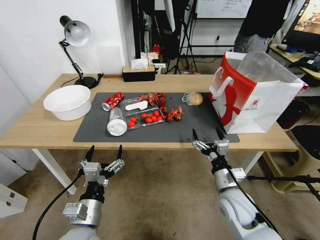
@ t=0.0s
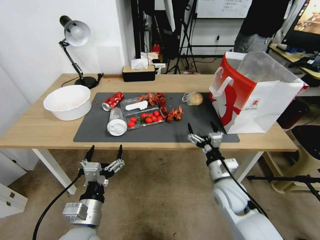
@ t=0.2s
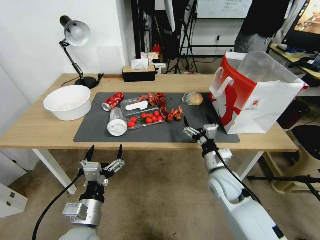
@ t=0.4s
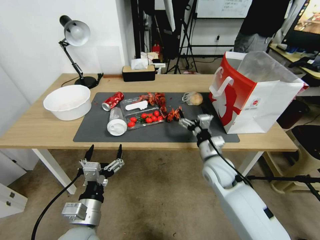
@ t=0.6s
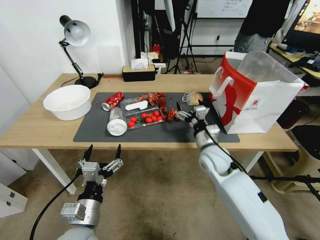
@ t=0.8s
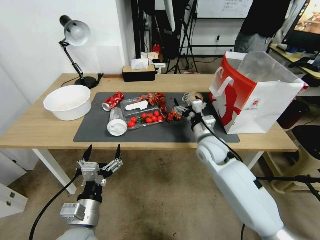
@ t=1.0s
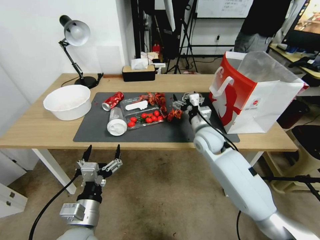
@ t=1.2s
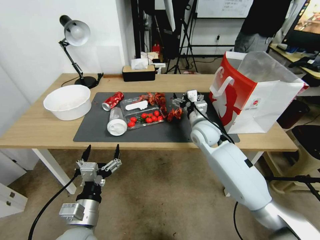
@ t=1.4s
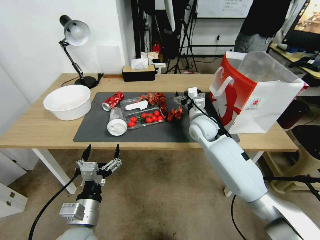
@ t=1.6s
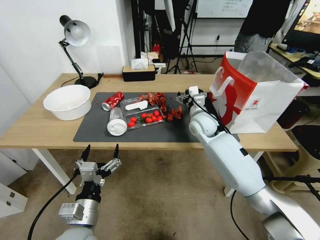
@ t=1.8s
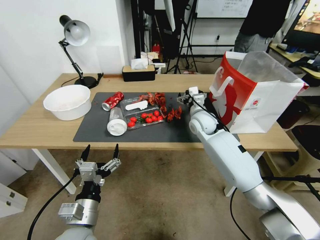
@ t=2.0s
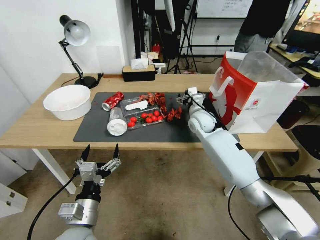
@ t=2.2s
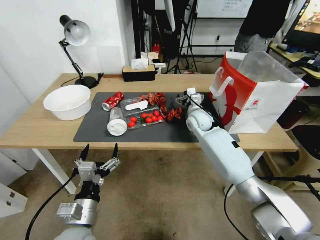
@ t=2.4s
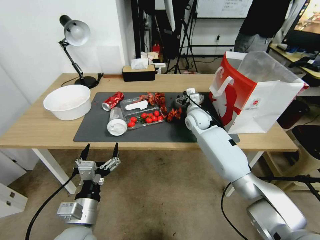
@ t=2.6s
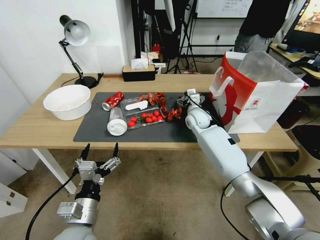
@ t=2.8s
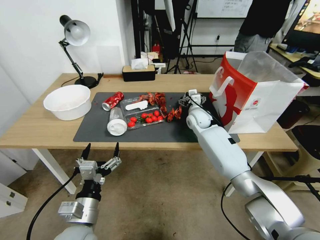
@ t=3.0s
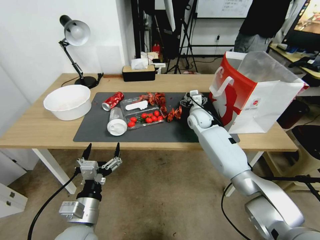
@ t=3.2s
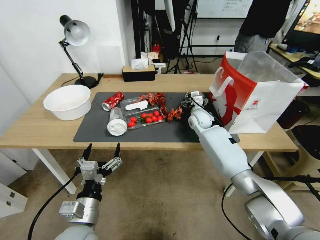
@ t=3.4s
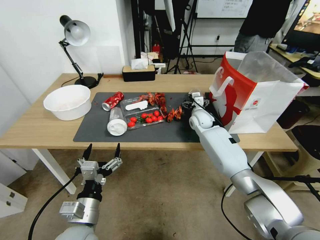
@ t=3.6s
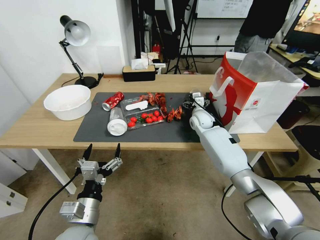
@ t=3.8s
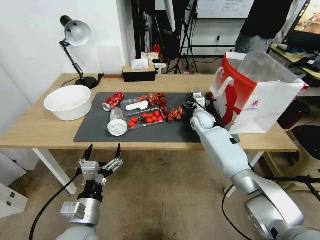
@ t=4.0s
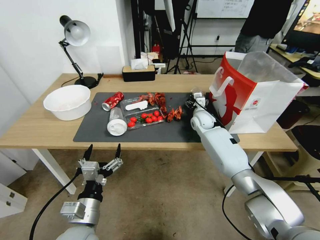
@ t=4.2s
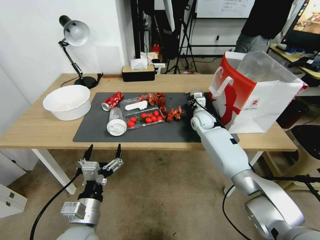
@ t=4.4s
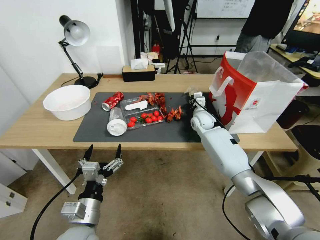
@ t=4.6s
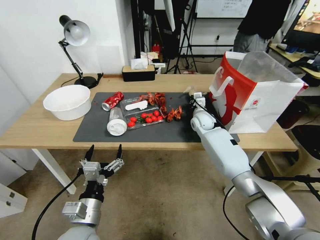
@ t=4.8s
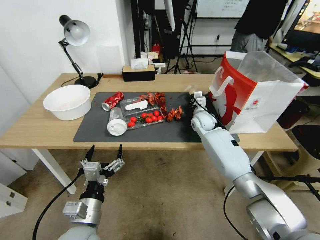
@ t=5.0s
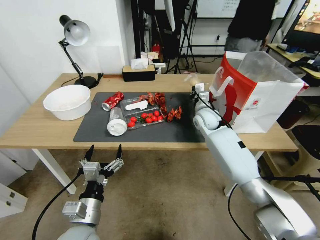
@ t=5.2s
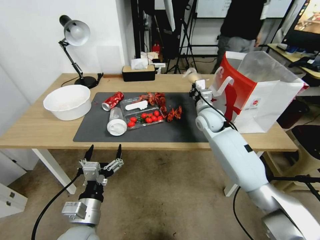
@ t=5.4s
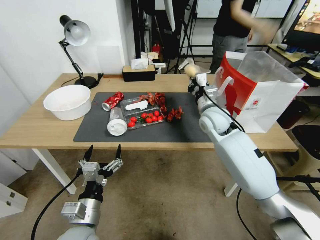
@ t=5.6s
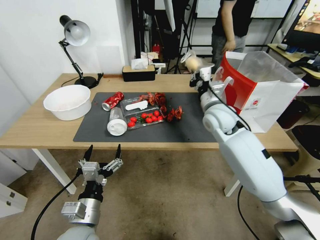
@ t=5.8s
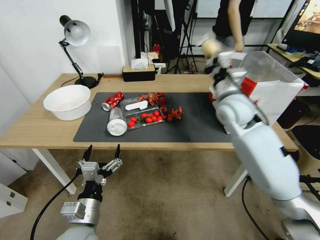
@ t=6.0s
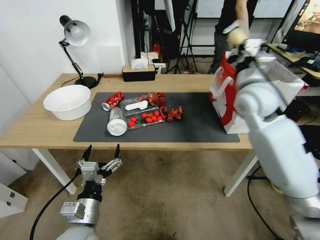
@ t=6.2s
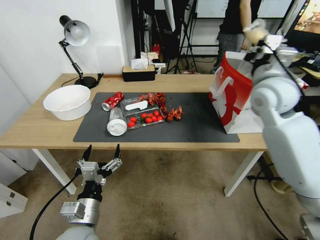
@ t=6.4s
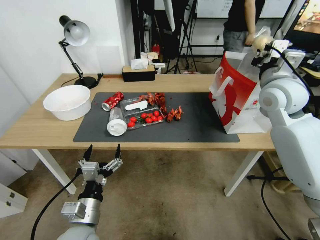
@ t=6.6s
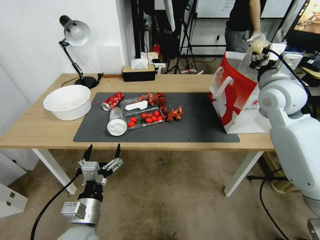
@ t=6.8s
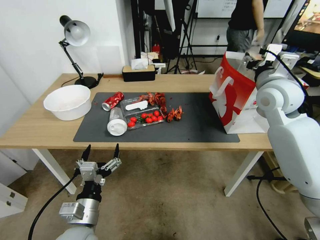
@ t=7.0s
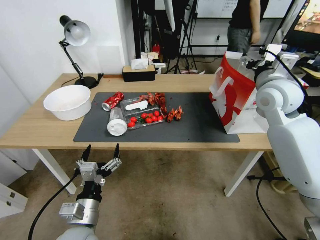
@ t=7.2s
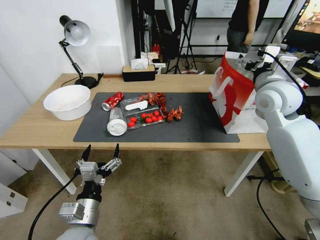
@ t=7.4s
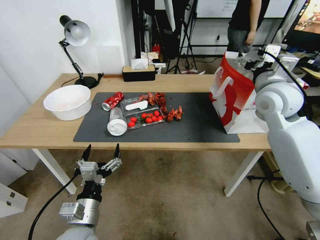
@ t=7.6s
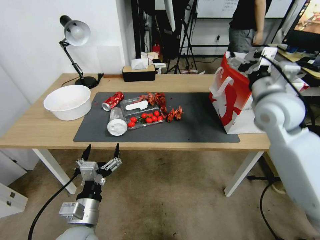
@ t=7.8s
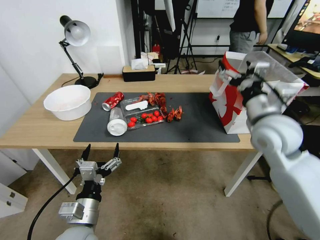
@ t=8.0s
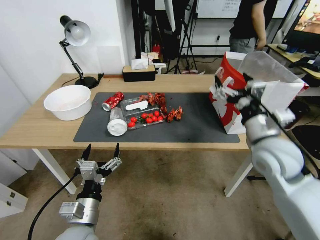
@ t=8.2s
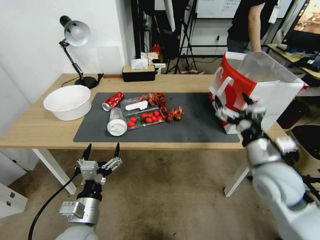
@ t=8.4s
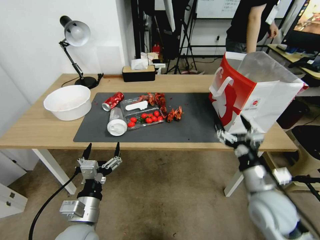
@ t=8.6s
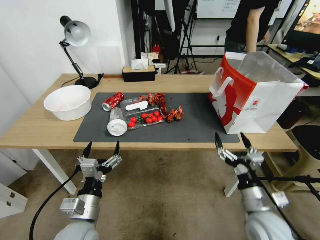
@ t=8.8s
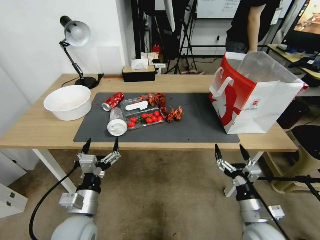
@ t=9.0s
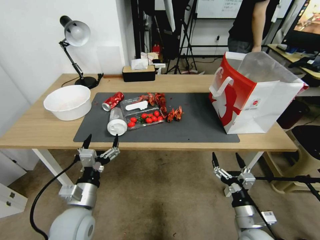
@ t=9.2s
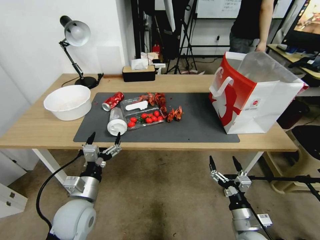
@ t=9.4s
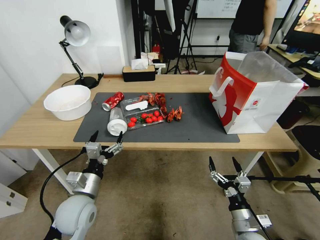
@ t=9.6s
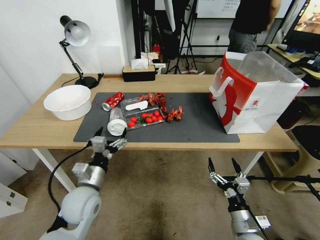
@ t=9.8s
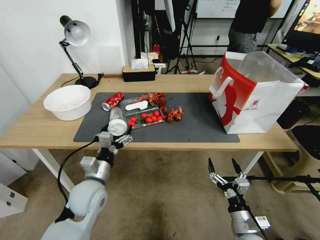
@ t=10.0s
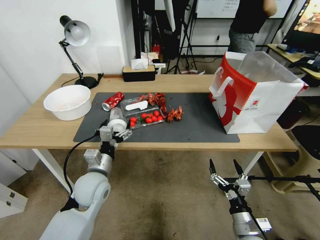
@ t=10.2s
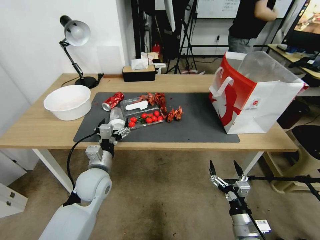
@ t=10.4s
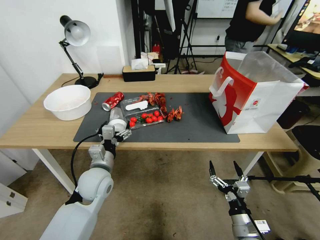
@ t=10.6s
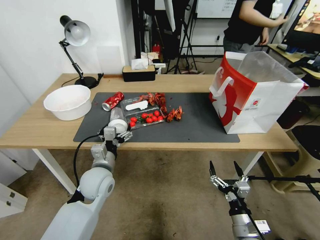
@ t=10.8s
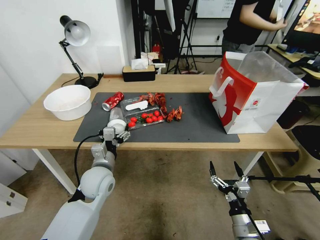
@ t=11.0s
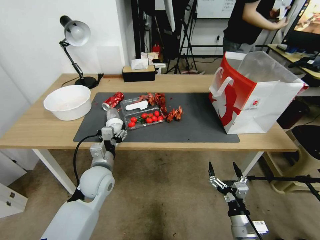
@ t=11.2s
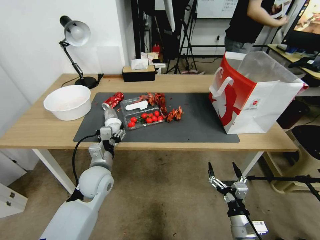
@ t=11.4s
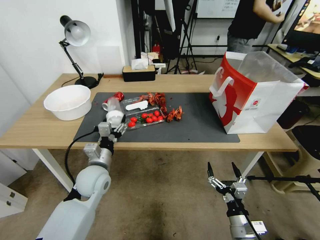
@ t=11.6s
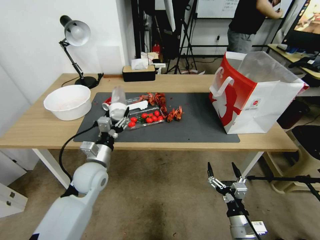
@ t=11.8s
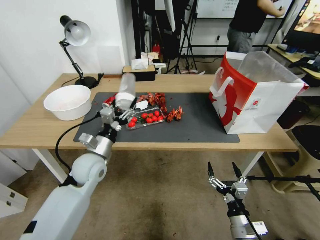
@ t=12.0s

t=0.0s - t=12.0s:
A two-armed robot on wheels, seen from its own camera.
t=0.0s - t=1.6s: The right gripper shifts approximately 25 cm forward and upward.
t=1.6s - t=3.0s: The right gripper moves forward, roughly 10 cm.
t=3.0s - t=4.4s: The right gripper closes its fingers.
t=4.4s - t=6.0s: The right gripper travels upward and backward by approximately 20 cm, and closes.
t=6.0s - t=7.6s: The right gripper goes roughly 10 cm to the right and upward, and opens up.
t=7.6s - t=9.0s: The right gripper shifts approximately 40 cm downward and backward.
t=9.0s - t=10.4s: The right gripper travels downward by some 5 cm. The left gripper heads forward, covering approximately 10 cm.
t=10.4s - t=12.0s: The left gripper shifts by roughly 5 cm, and closes up.

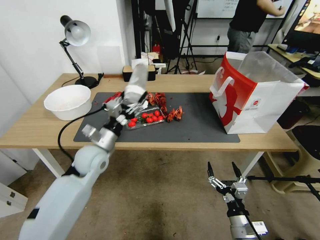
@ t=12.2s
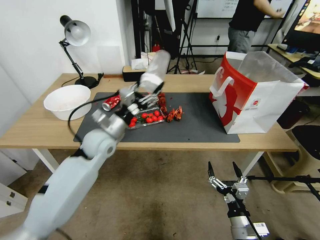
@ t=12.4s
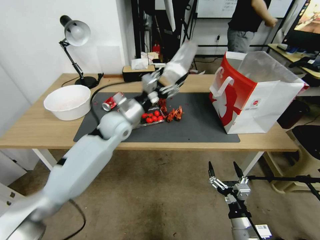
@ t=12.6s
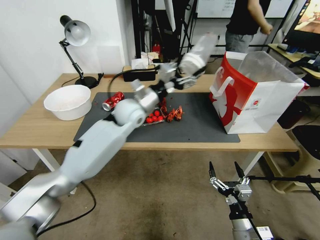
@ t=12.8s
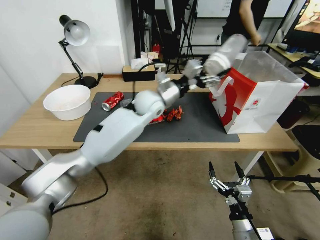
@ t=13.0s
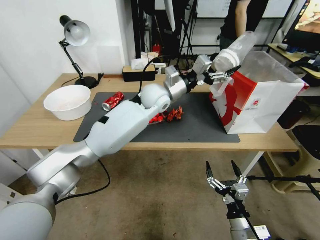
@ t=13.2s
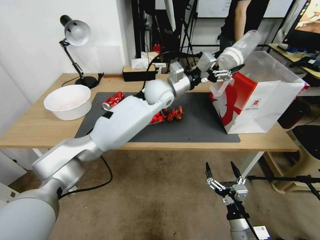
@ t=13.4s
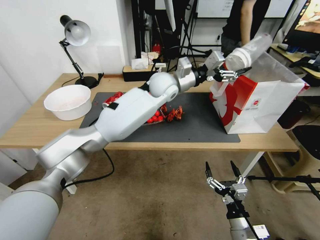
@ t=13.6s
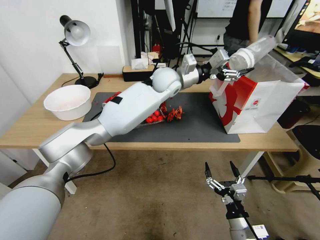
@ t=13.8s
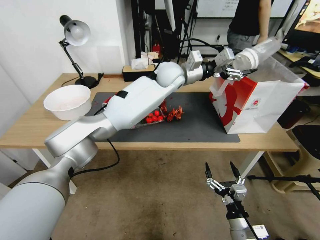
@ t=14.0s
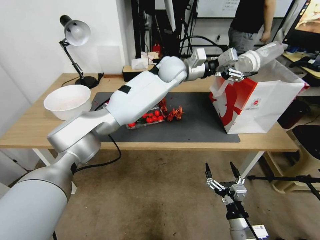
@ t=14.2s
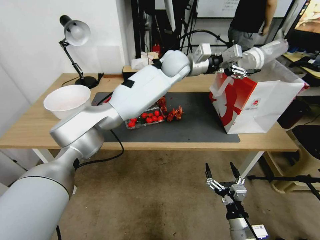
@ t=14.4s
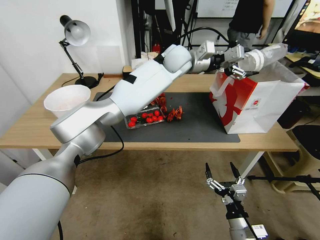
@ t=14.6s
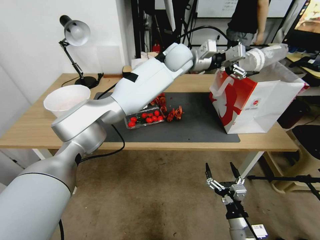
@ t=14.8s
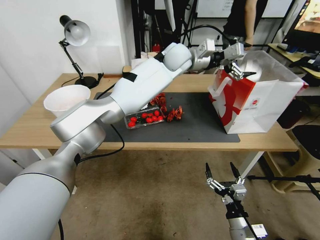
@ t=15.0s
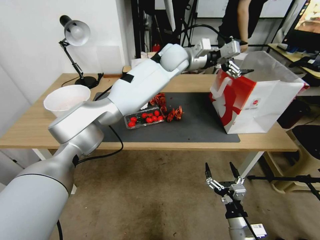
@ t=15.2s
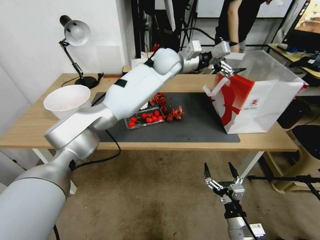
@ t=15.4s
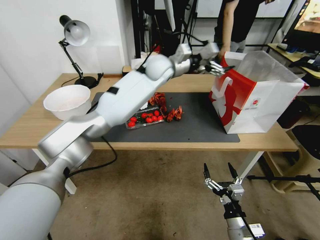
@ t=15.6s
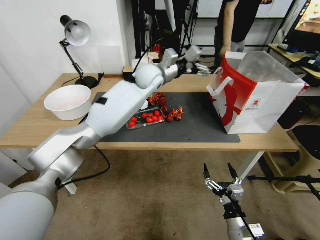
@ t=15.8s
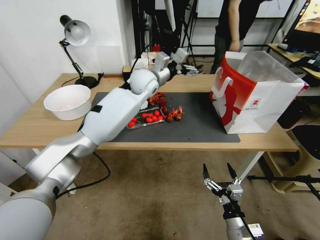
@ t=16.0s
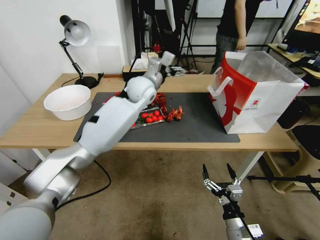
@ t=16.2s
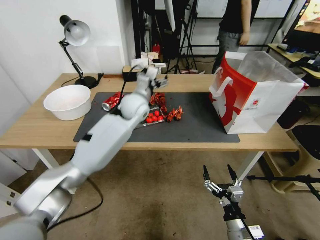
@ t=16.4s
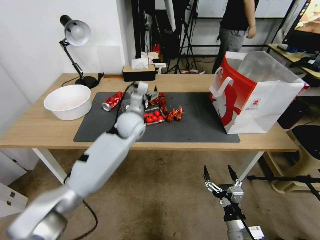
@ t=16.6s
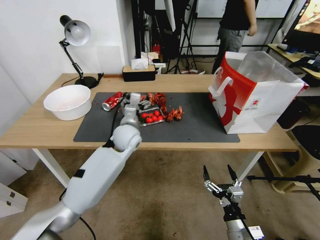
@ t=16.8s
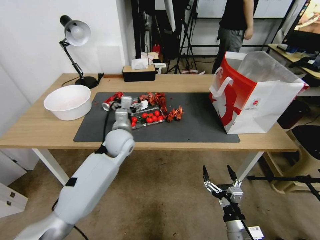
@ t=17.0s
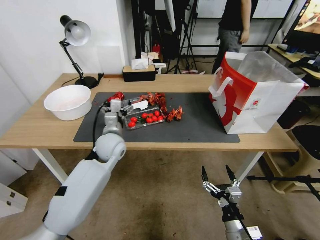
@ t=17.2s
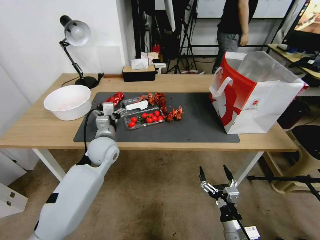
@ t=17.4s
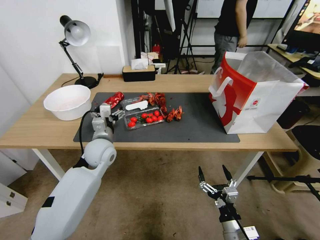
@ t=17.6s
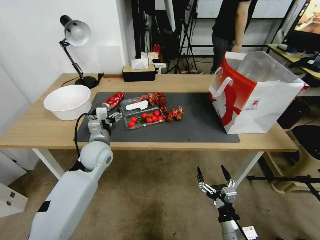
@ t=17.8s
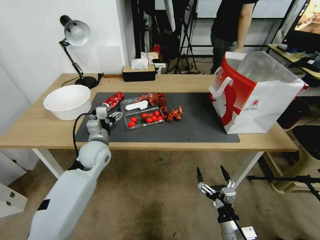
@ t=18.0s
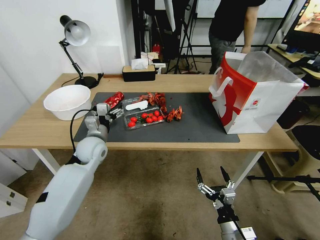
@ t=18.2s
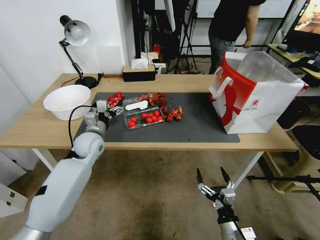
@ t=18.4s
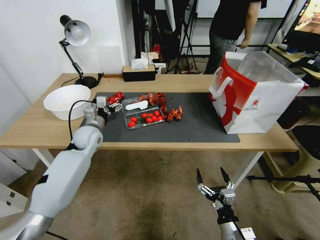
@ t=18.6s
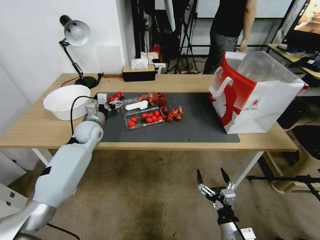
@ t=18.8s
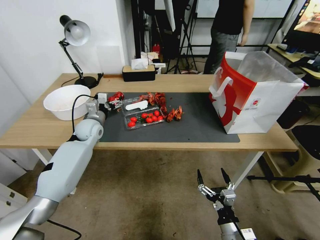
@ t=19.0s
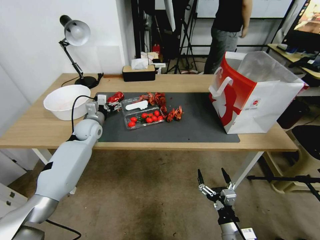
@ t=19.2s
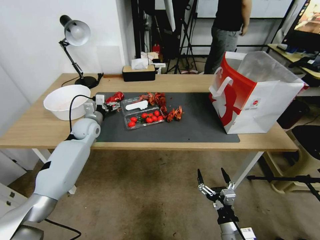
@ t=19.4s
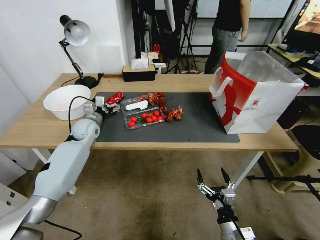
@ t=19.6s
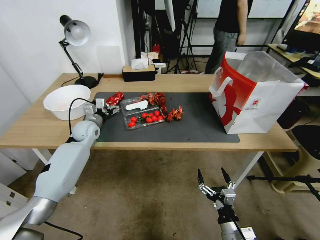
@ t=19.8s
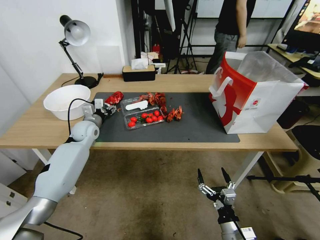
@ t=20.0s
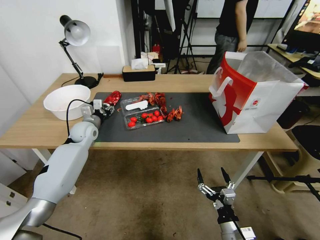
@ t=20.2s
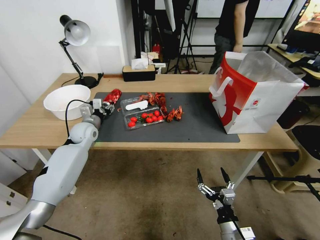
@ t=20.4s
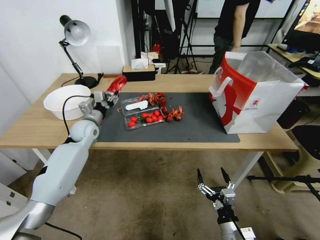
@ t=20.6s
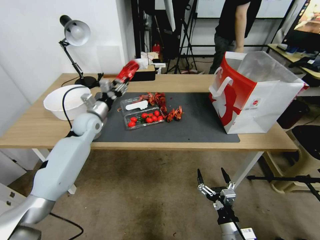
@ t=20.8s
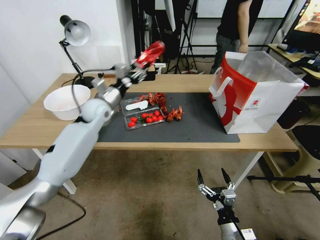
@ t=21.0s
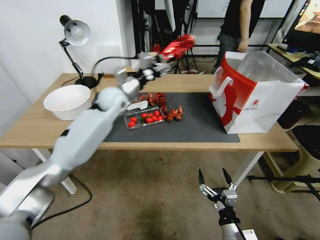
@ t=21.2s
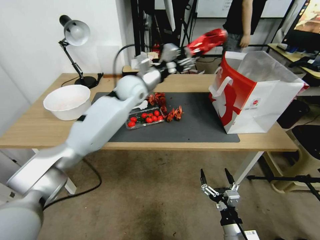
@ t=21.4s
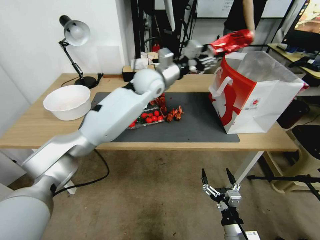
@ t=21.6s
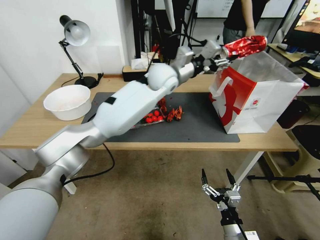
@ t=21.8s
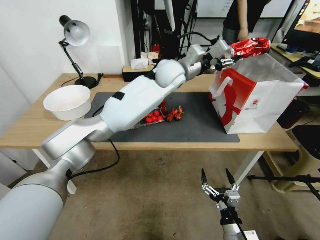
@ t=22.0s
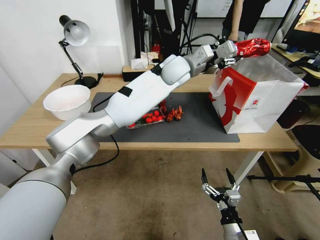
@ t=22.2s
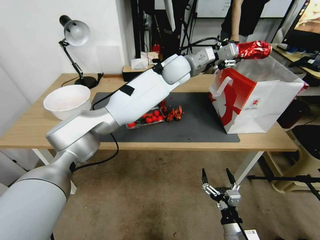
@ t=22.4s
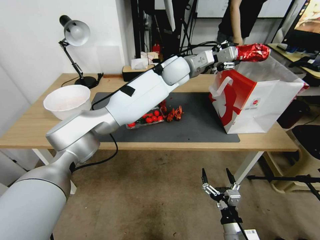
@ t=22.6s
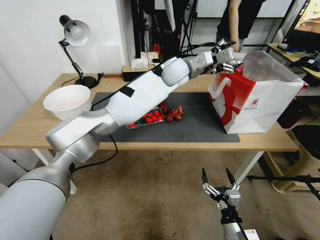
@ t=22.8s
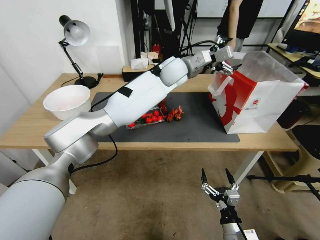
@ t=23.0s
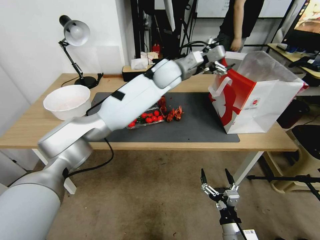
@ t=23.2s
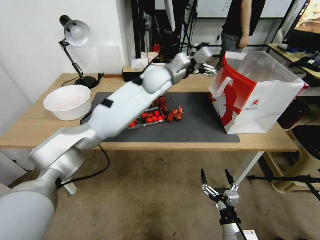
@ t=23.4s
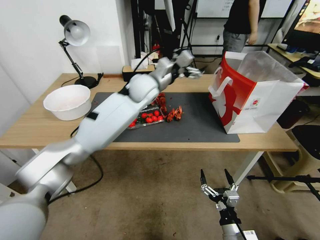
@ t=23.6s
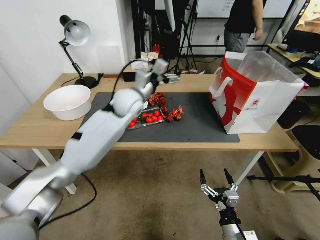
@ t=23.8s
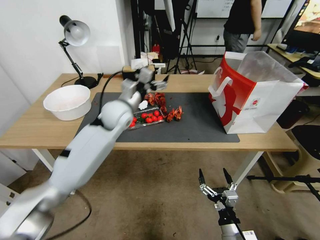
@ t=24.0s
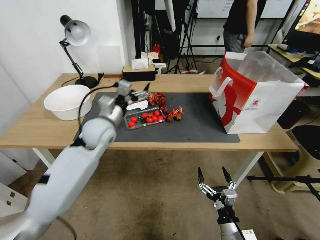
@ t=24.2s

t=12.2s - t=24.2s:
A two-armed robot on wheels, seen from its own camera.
t=12.2s - t=13.8s: The left gripper is displaced to the right, forward and upward by about 35 cm.
t=13.8s - t=15.2s: The left gripper moves upward, roughly 5 cm, and opens its fingers.
t=15.2s - t=16.6s: The left gripper travels to the left, downward and backward by some 20 cm.
t=16.6s - t=18.2s: The left gripper moves to the left, downward and backward, approximately 25 cm.
t=18.2s - t=19.8s: The left gripper goes roughly 10 cm forward and to the left.
t=19.8s - t=21.2s: The left gripper is displaced upward and to the right by some 15 cm, and closes up.
t=21.2s - t=22.6s: The left gripper goes some 25 cm to the right and upward.
t=22.6s - t=24.2s: The left gripper is displaced to the left, backward and downward by approximately 30 cm, and opens its fingers.
